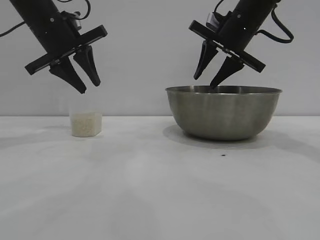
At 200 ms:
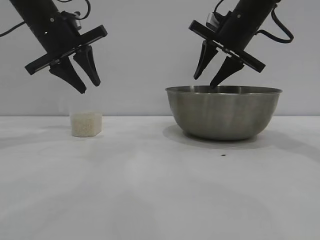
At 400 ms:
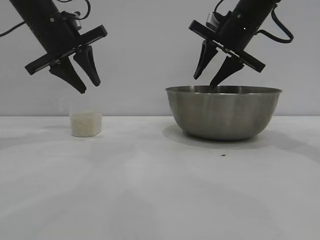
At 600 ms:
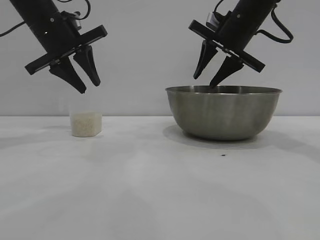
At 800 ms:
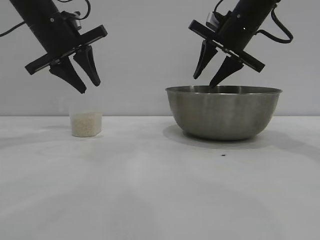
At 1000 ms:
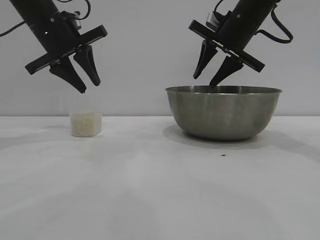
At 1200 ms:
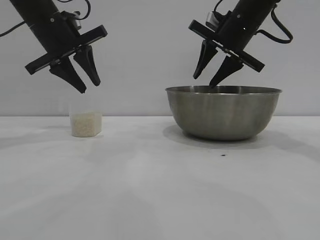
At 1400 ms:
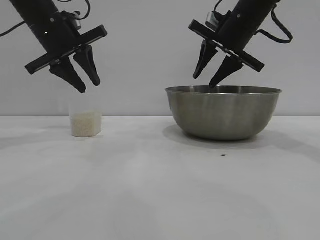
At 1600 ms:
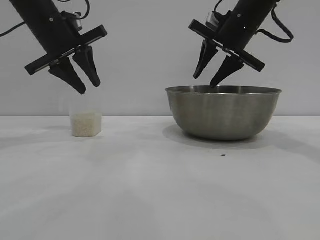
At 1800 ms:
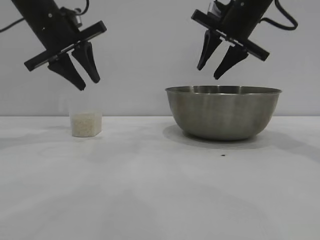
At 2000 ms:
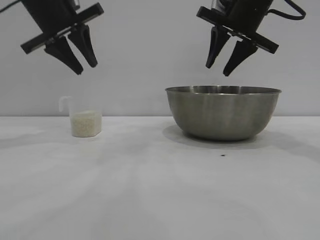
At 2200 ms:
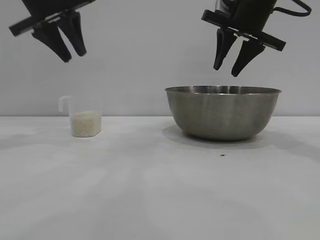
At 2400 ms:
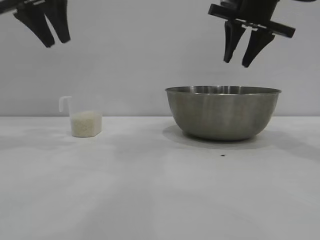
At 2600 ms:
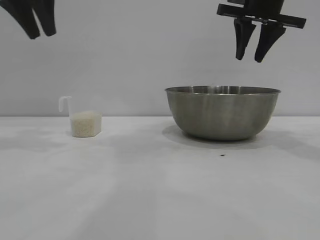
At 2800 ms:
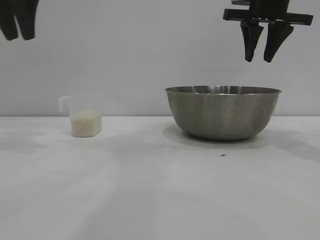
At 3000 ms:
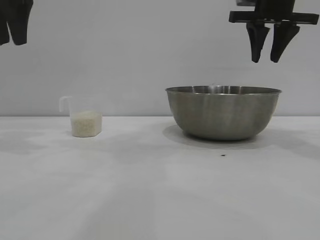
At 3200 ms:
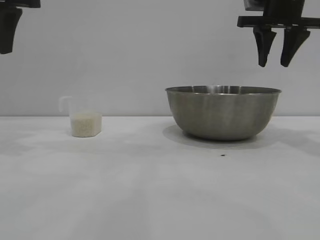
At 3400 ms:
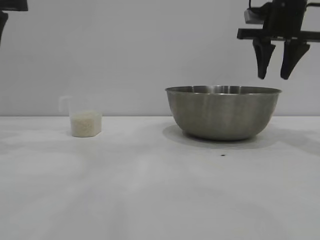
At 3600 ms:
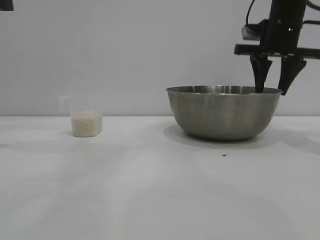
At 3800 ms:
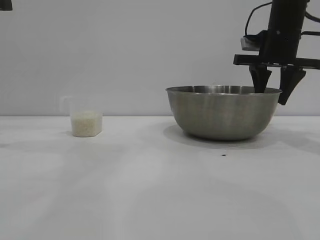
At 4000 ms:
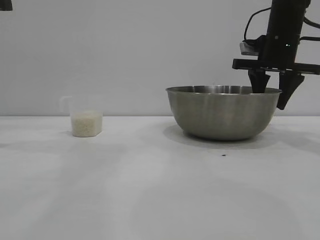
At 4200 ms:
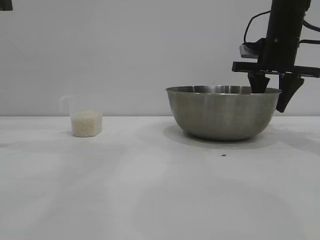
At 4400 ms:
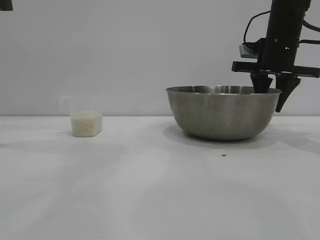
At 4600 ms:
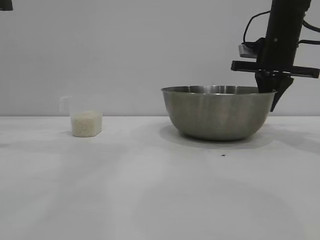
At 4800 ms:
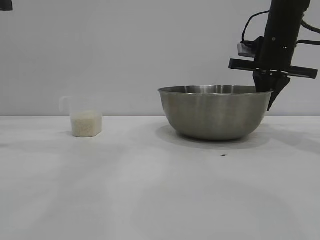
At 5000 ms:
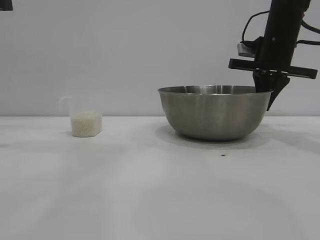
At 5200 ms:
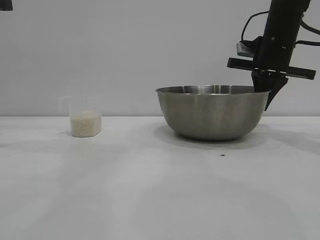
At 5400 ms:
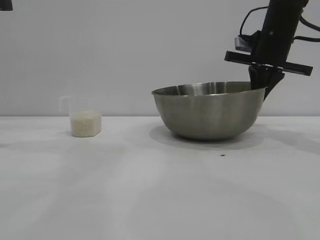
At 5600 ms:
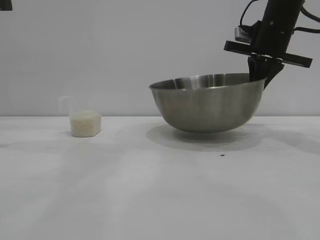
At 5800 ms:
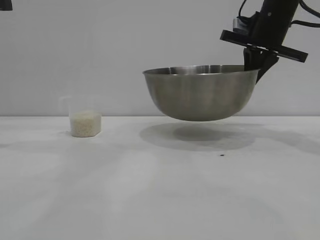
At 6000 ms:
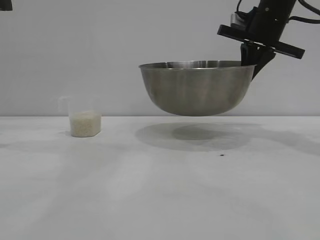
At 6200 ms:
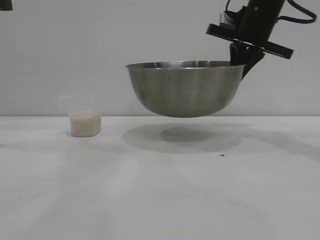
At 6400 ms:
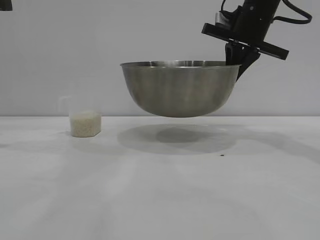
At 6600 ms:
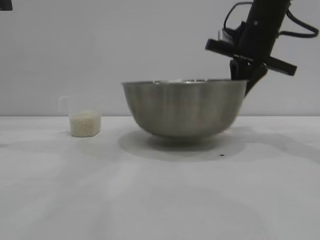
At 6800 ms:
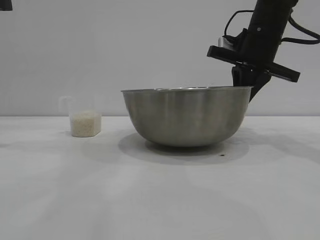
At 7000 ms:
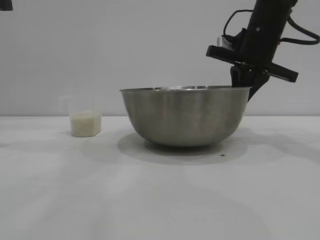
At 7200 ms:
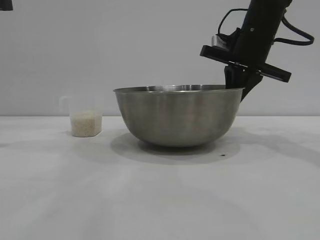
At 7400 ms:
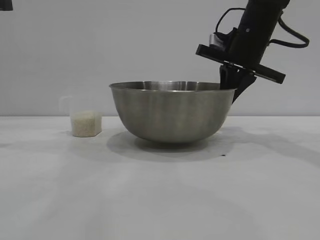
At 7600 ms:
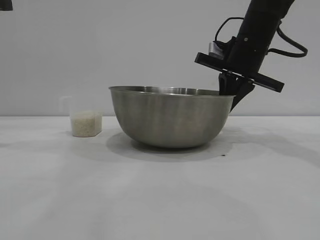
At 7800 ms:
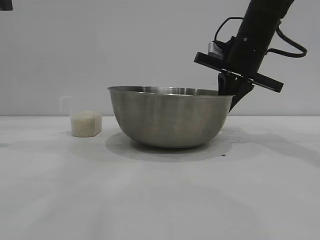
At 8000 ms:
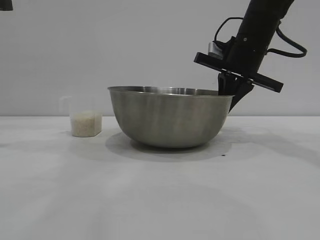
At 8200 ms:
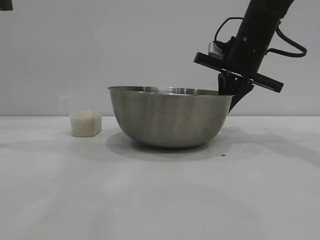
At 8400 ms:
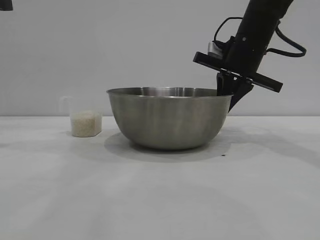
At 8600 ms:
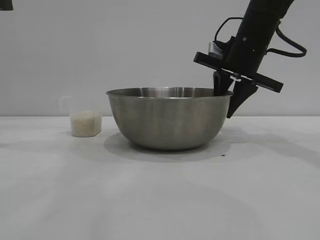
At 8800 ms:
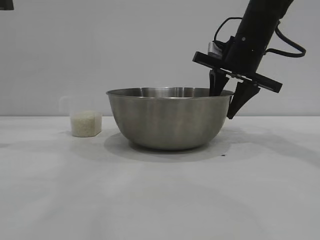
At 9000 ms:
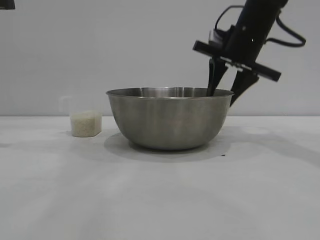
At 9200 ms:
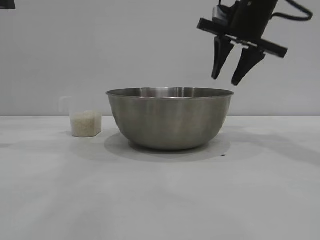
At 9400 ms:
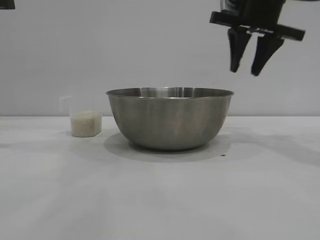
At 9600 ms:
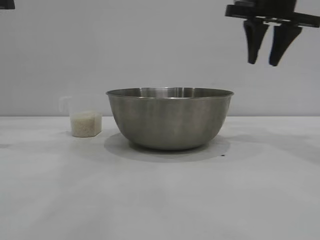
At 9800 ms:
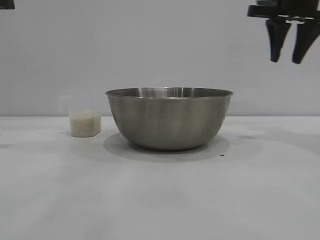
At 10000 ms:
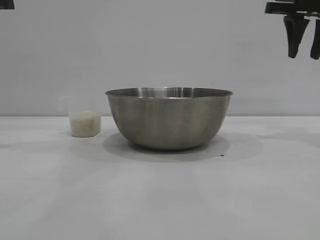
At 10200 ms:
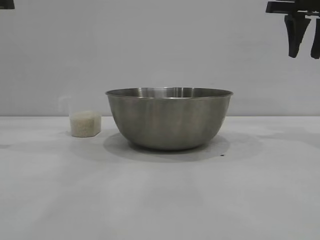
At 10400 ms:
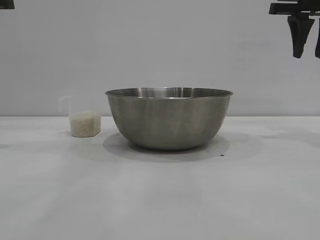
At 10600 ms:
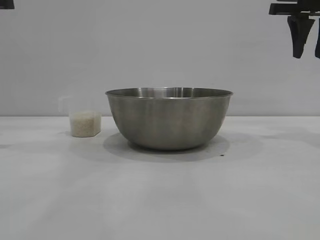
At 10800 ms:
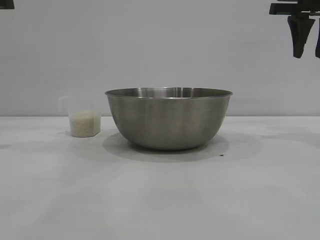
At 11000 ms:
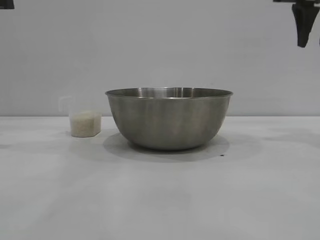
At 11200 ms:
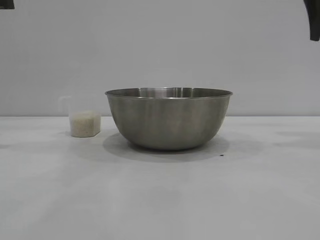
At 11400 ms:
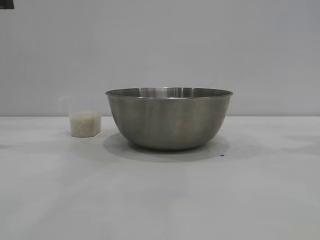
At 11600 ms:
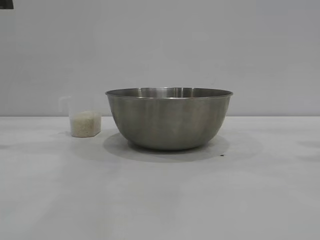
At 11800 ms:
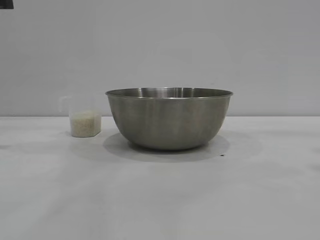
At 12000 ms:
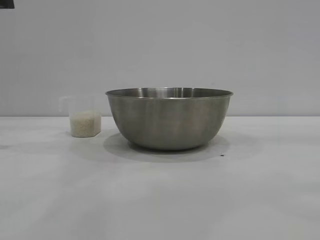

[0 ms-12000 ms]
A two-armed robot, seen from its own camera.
Task of the whole recording: the right gripper grasp the rice container and place it in the center of the table, the left gripper grasp the rice scoop and pour the rice into the rice container.
Step, 0 ms to 5800 ms: Pick up the bowl with the right gripper.
Step, 6200 ms to 9200 ms: Place the bowl in the center of view with the right gripper.

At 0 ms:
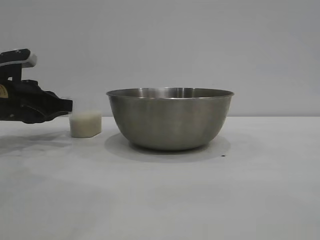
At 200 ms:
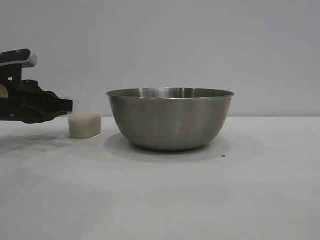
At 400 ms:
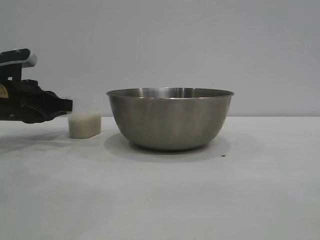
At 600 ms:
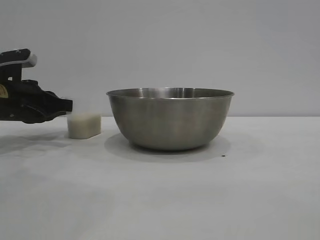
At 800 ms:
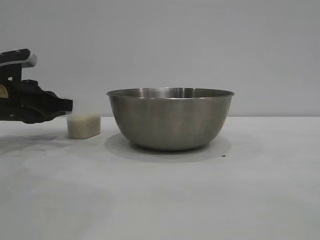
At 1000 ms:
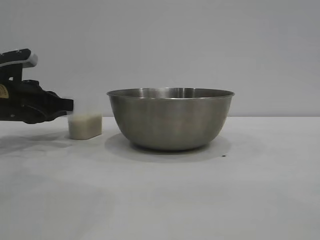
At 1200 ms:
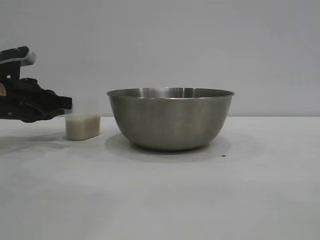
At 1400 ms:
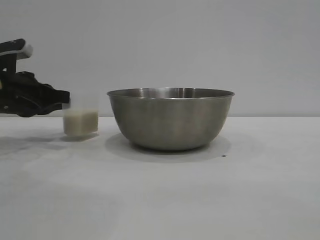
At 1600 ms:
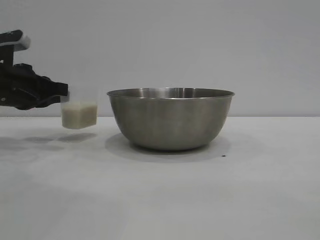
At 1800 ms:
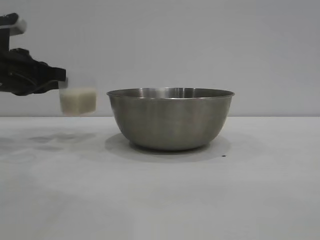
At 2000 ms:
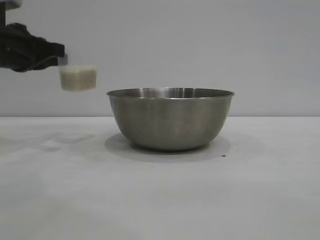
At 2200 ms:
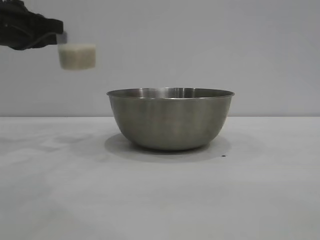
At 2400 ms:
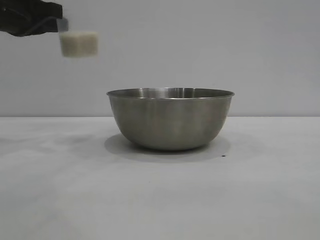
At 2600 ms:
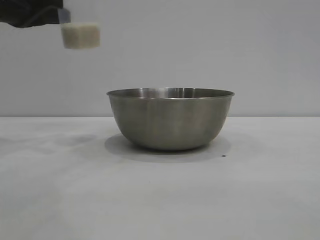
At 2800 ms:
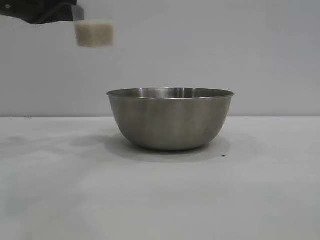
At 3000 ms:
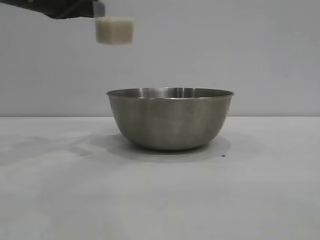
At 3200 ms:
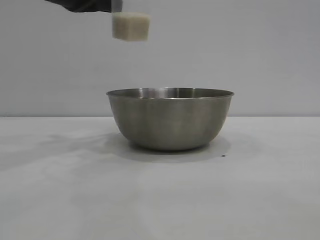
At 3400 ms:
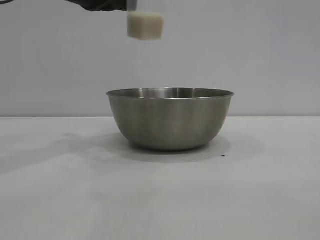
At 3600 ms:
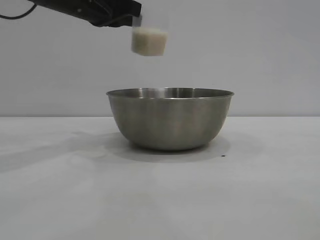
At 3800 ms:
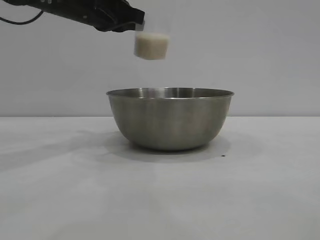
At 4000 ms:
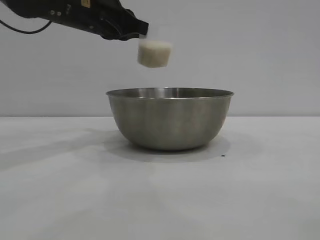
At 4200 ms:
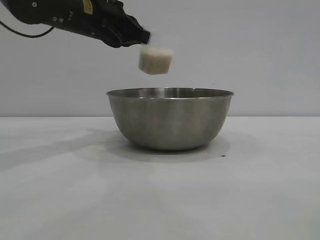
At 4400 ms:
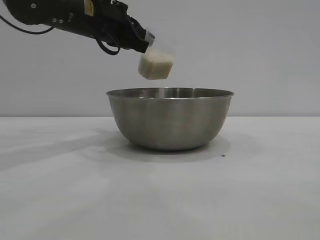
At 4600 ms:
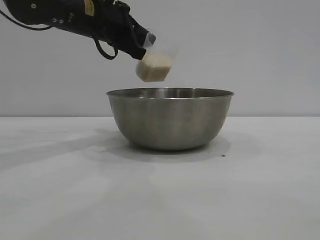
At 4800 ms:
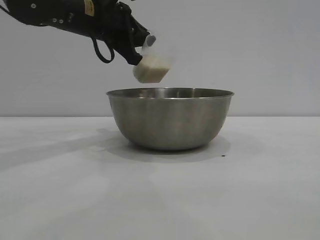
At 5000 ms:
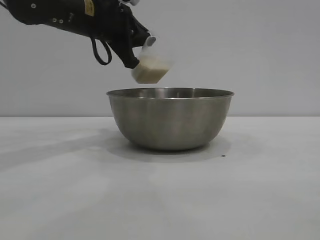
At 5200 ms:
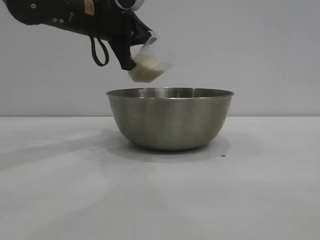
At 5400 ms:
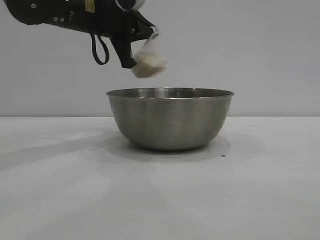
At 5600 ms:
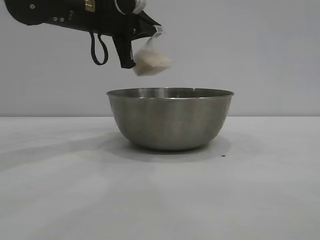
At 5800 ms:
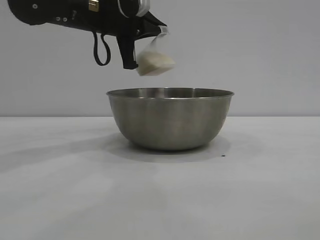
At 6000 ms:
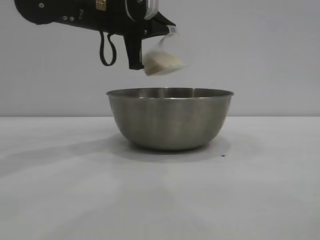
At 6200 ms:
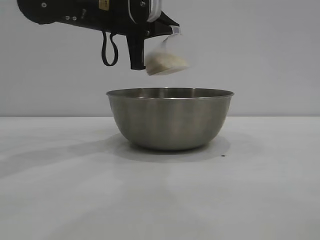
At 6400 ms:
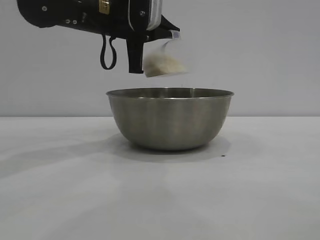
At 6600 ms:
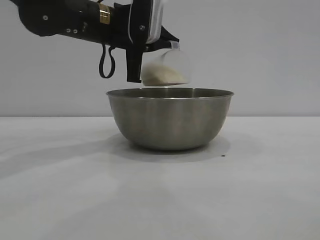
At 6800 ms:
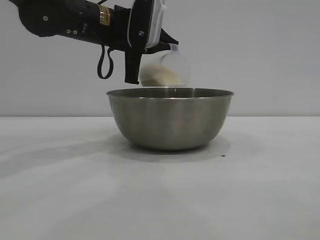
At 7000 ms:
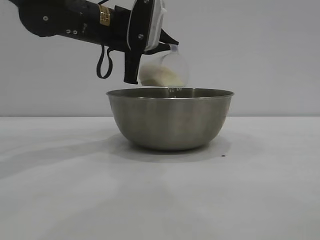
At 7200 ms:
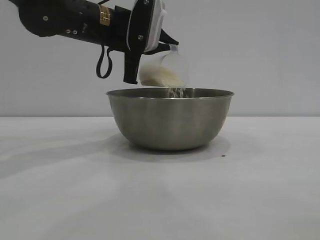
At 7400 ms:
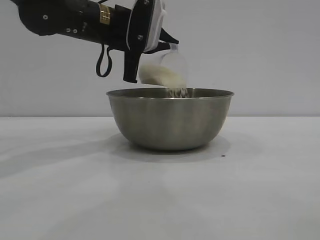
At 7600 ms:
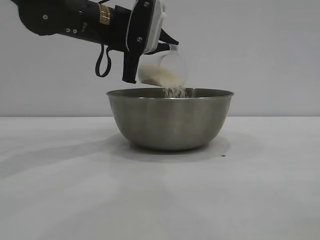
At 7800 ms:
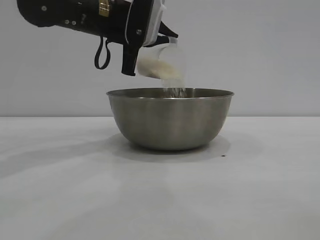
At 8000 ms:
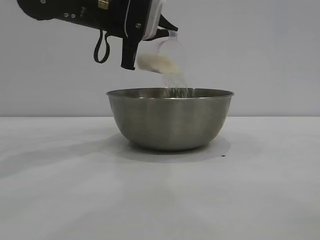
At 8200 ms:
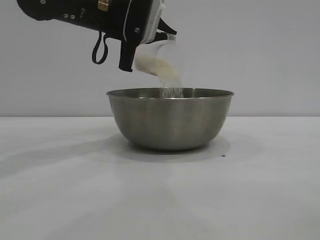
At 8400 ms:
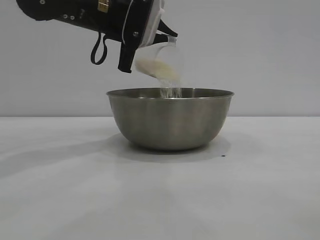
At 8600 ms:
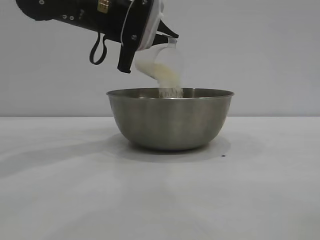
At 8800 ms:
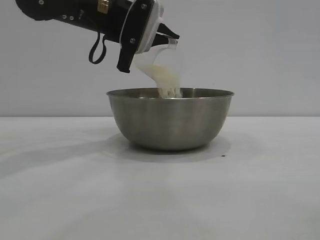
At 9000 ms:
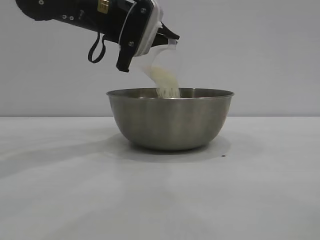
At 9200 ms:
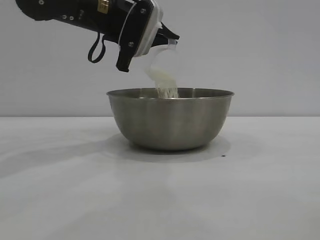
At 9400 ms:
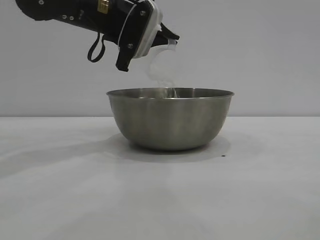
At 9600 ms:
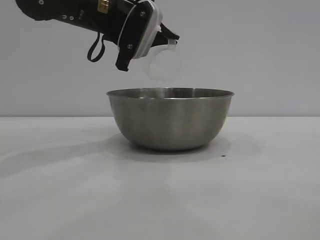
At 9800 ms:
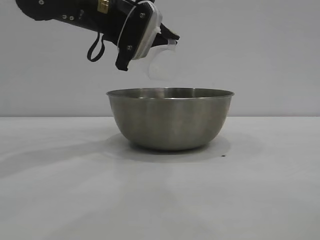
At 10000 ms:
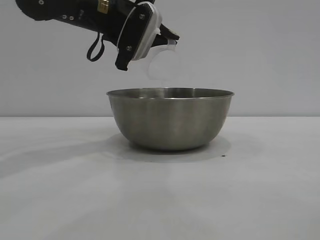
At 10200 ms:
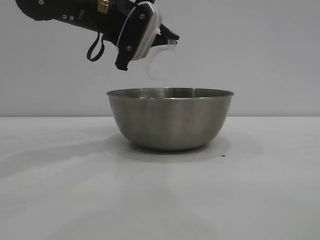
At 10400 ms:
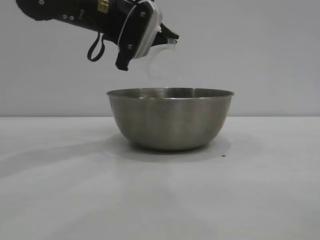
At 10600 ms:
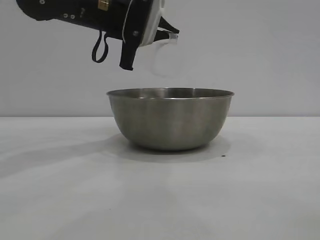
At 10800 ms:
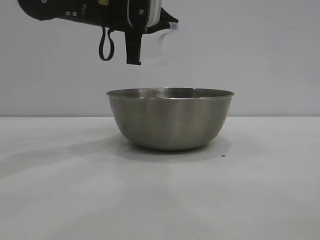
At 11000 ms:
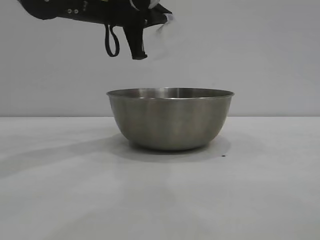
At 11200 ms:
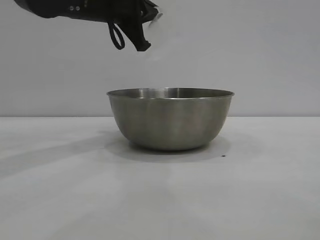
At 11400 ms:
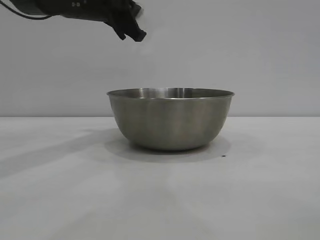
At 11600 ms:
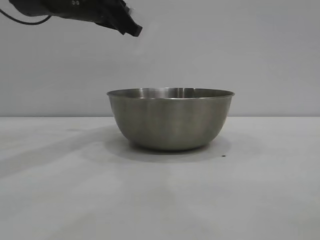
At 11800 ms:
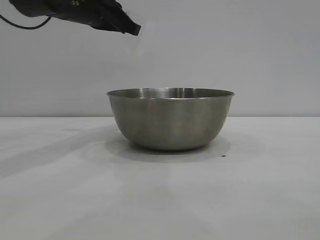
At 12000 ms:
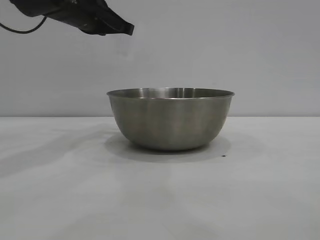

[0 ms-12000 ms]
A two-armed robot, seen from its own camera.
Task of the whole recording: the right gripper grasp the rice container and place it in the center of the table, the left gripper grasp the rice scoop and pour the rice into the rice container.
Step, 1800 ms to 10400 ms: Pour the rice from the cup into the bowl with the left gripper.
